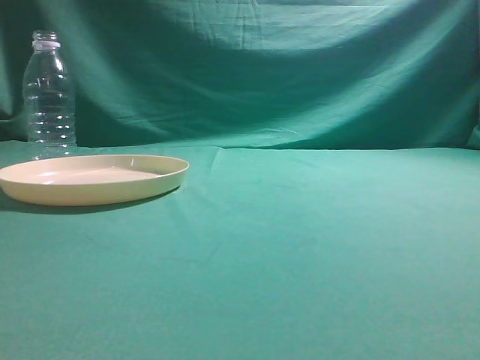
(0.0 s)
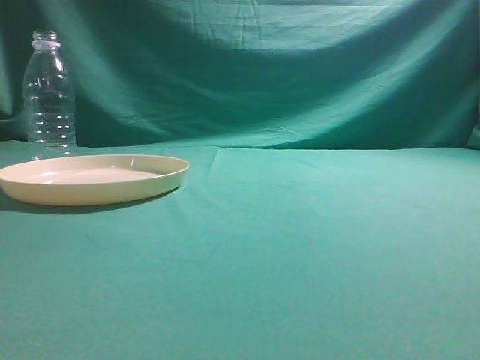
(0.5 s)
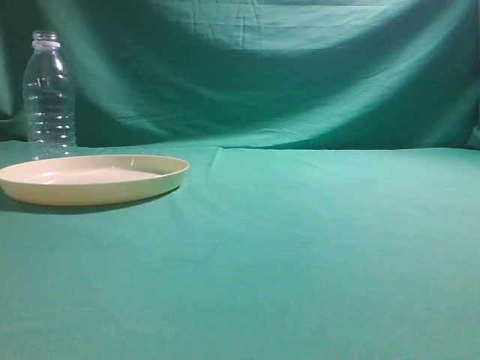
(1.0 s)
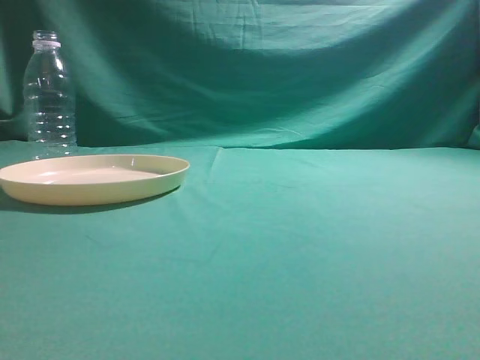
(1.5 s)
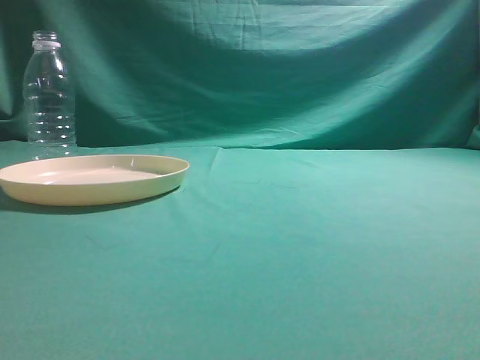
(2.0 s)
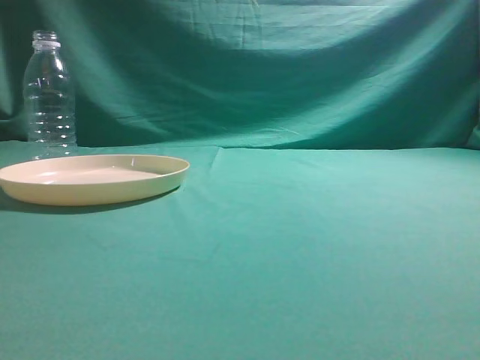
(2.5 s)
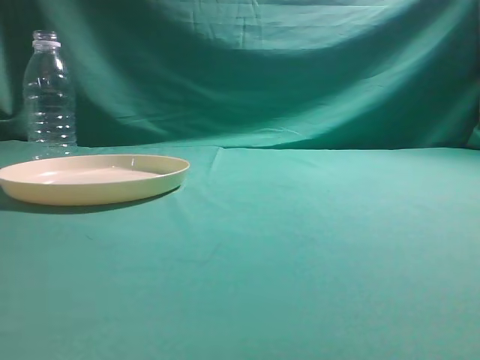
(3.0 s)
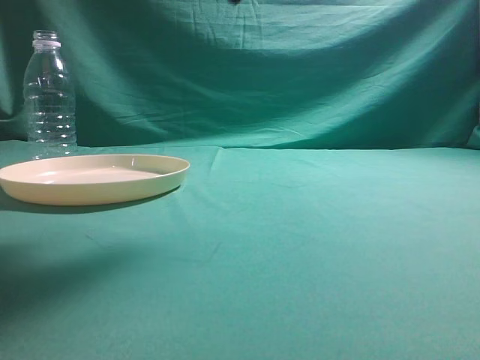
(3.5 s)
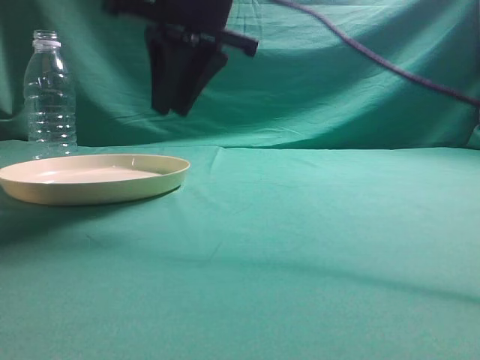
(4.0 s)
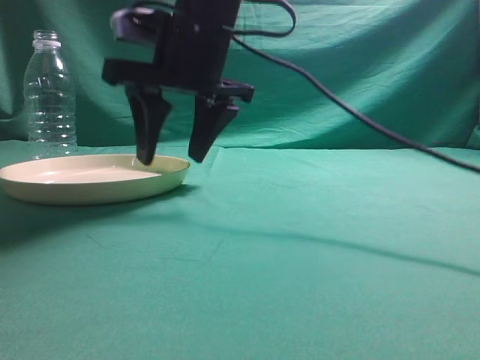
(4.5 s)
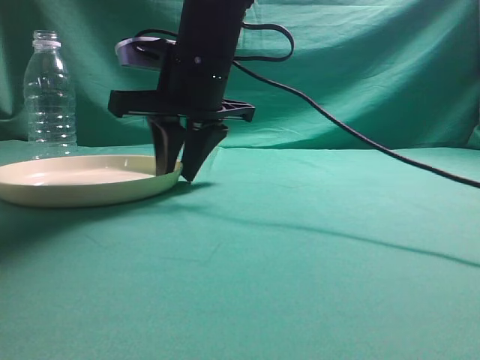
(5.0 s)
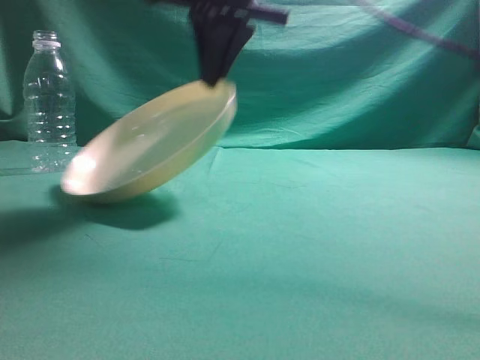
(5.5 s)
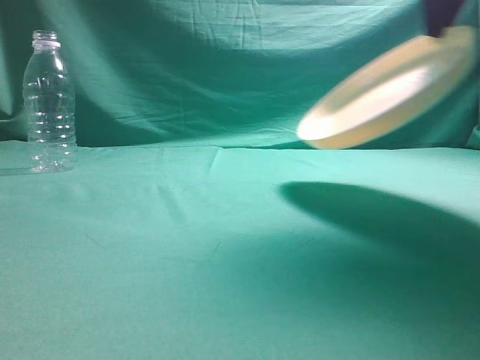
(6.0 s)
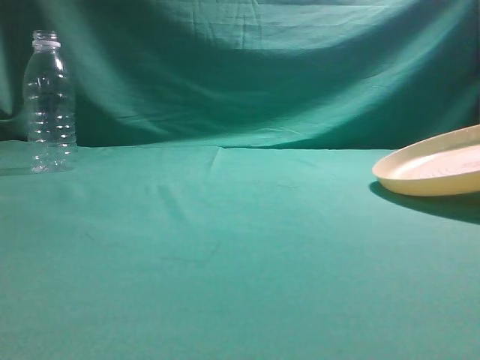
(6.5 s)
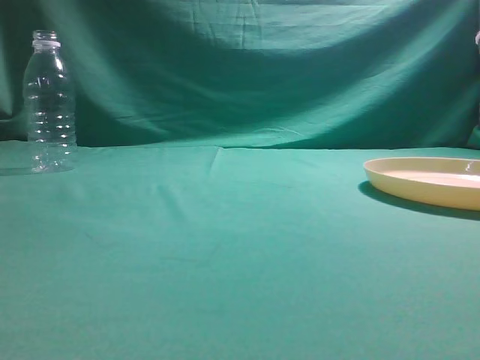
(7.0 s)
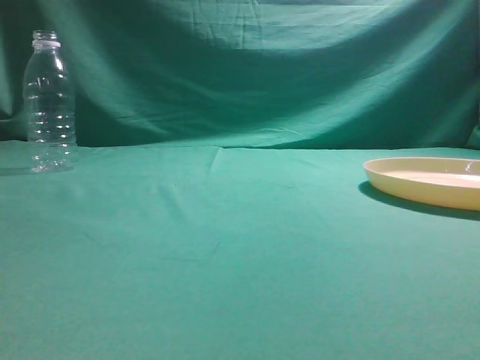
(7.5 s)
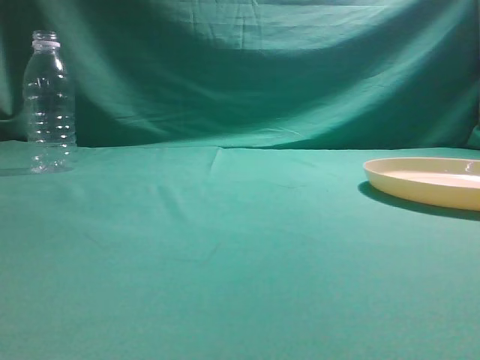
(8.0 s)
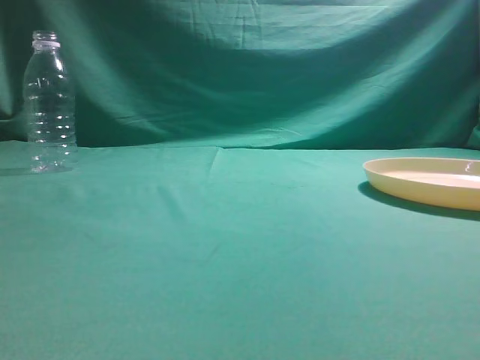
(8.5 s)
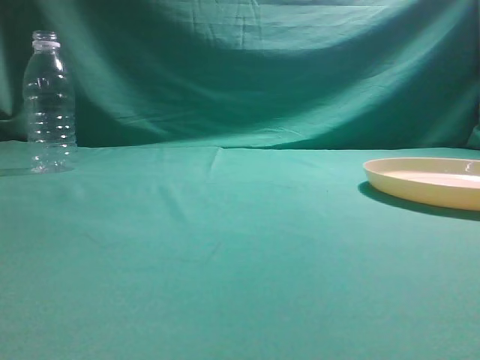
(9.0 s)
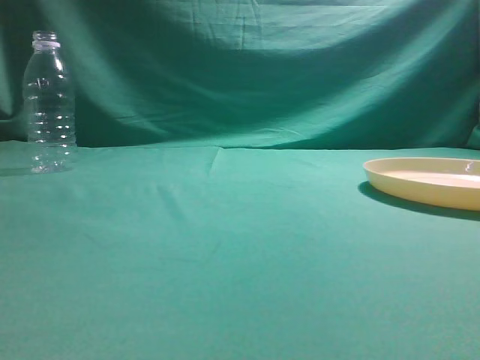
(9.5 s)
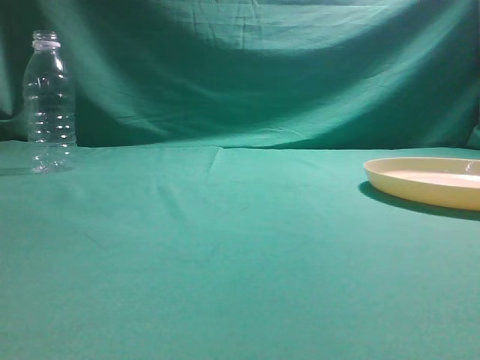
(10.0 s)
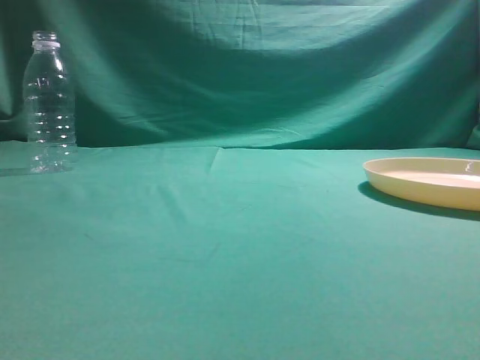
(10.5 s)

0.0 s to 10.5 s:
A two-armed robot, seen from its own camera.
Step, 0.0 to 5.5 s: Pick the container that can hold fruits.
Step, 6.0 to 7.0 s: Move the picked object to the right side of the table.
2.0 to 4.0 s: The right gripper travels forward and to the left by about 40 cm.
4.0 to 6.5 s: The right gripper moves to the right, approximately 30 cm, and opens, then closes again.
6.5 to 8.5 s: The right gripper swings up and down, about 30 cm each way, with 2 reversals, and opens, then closes once more.
